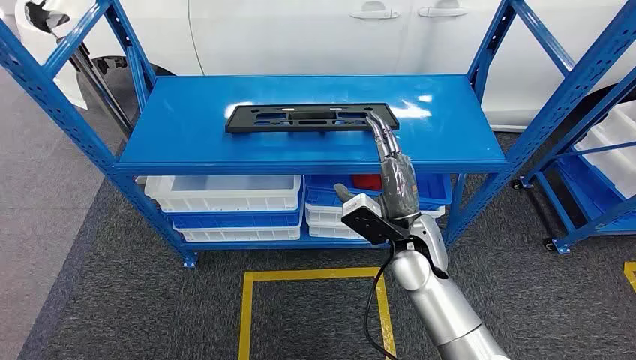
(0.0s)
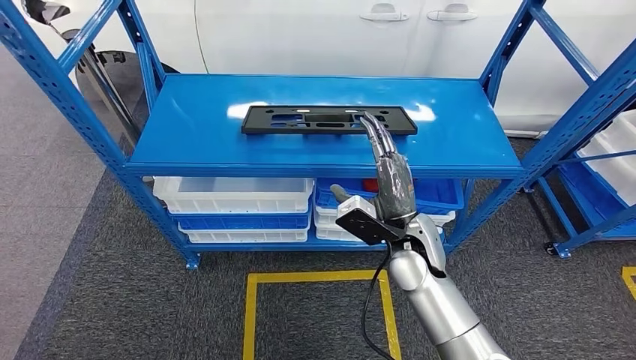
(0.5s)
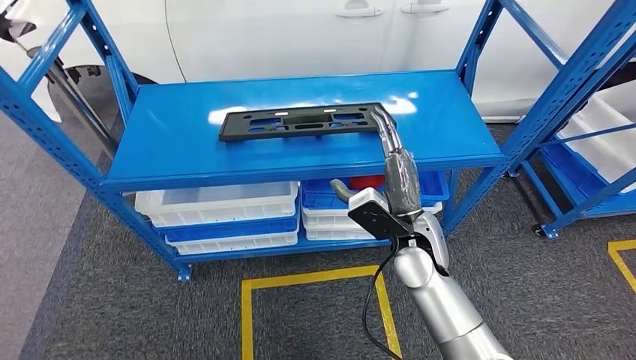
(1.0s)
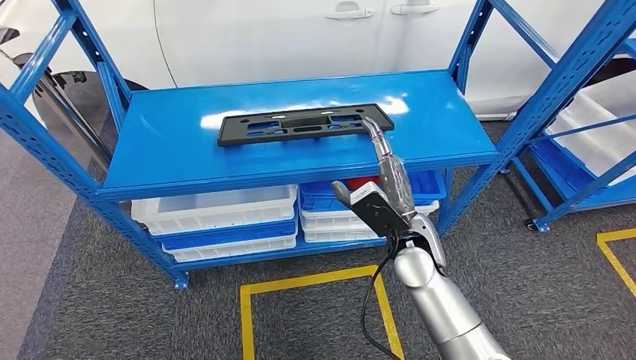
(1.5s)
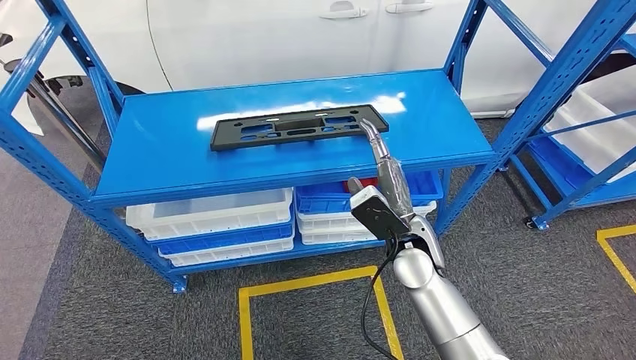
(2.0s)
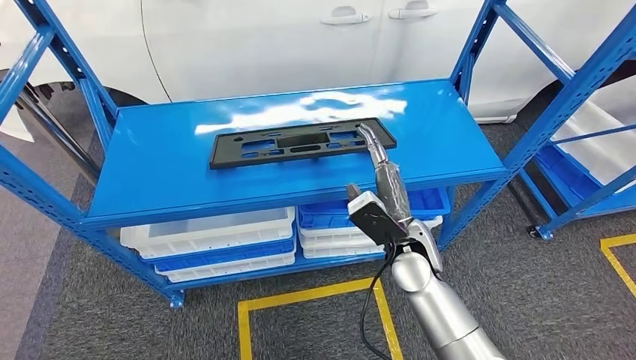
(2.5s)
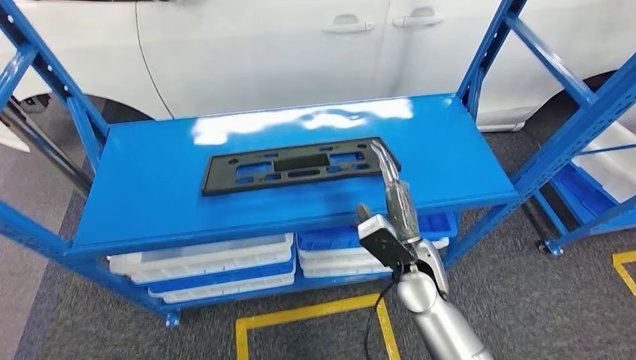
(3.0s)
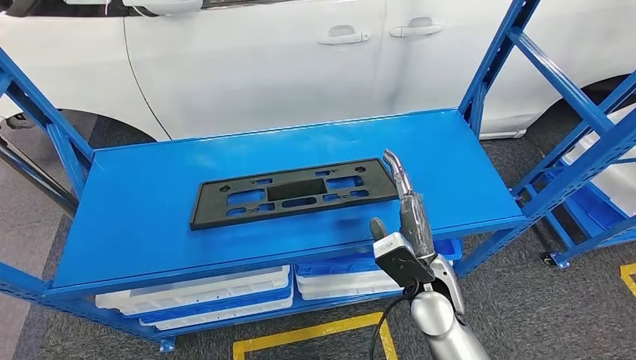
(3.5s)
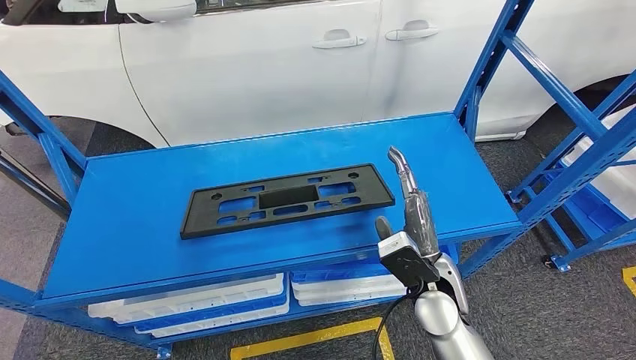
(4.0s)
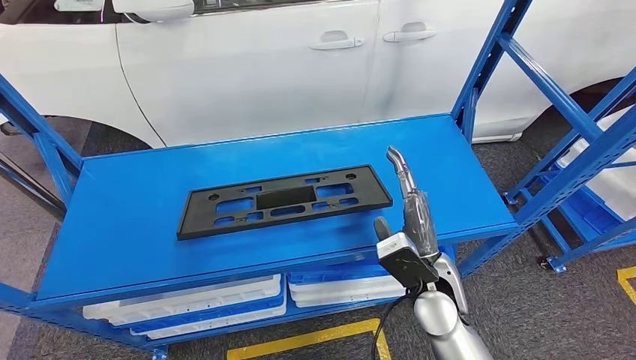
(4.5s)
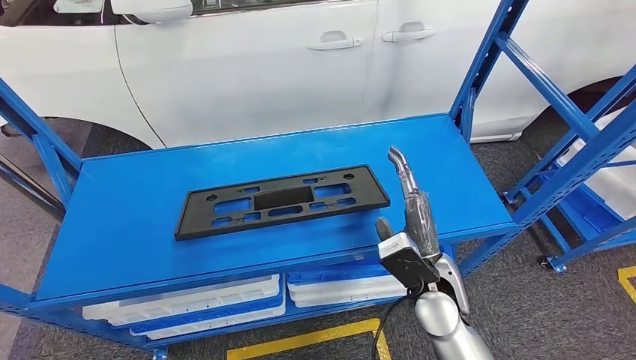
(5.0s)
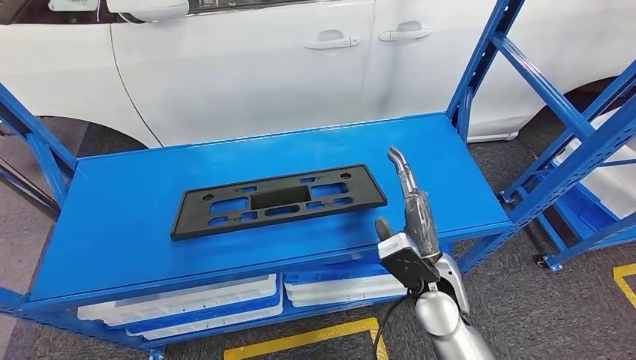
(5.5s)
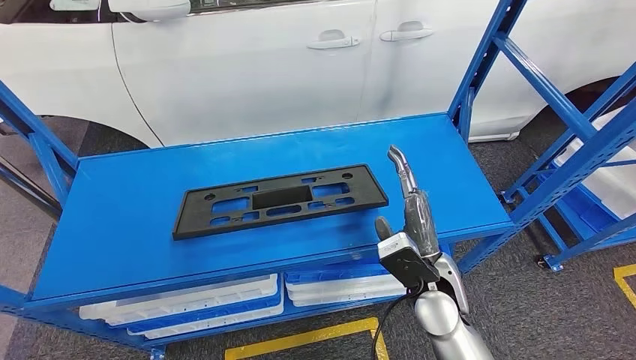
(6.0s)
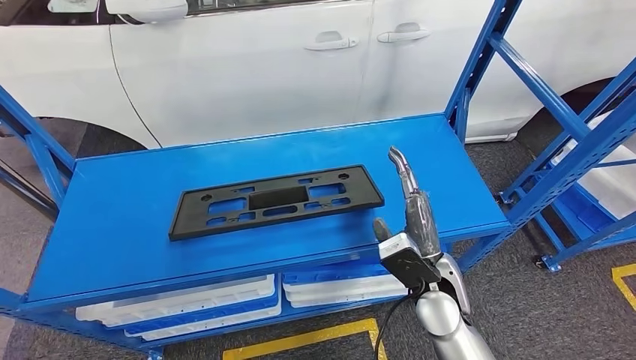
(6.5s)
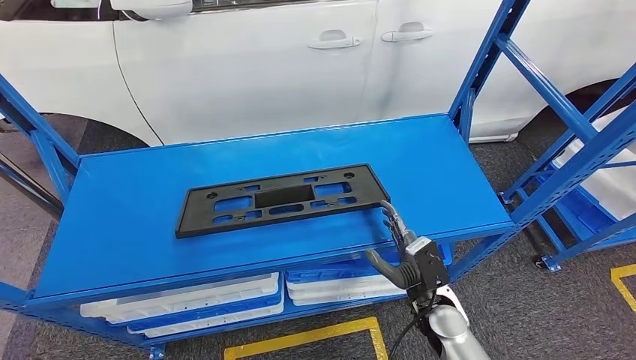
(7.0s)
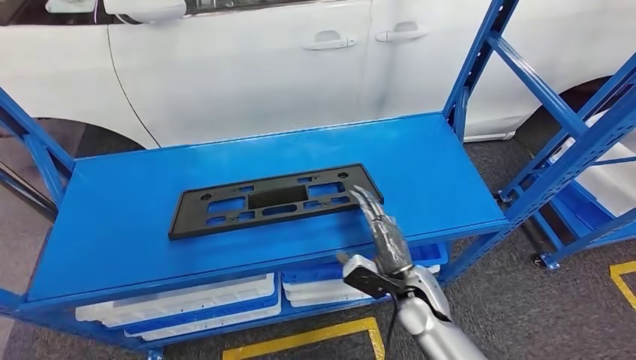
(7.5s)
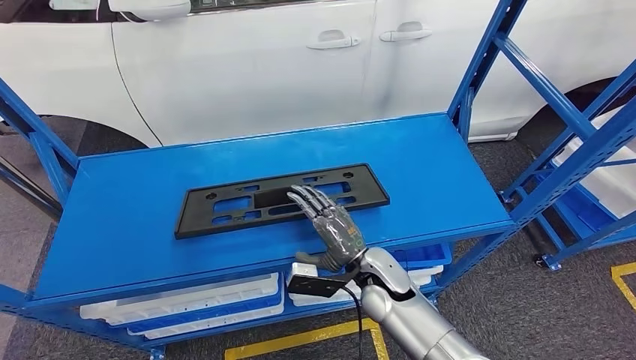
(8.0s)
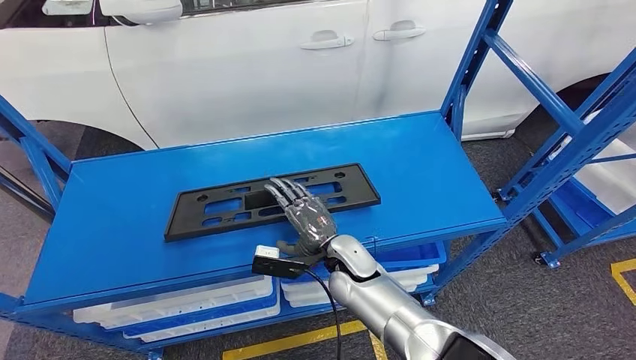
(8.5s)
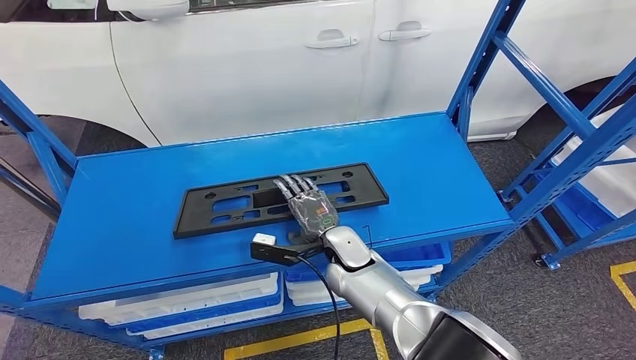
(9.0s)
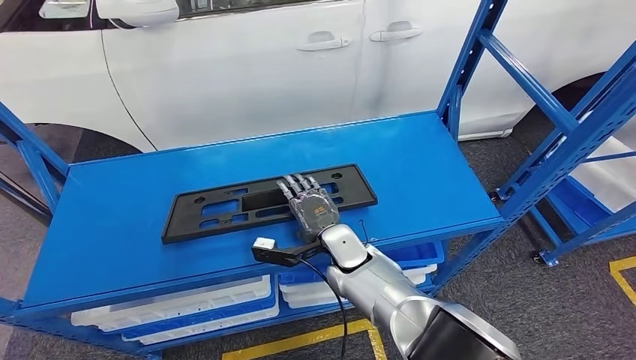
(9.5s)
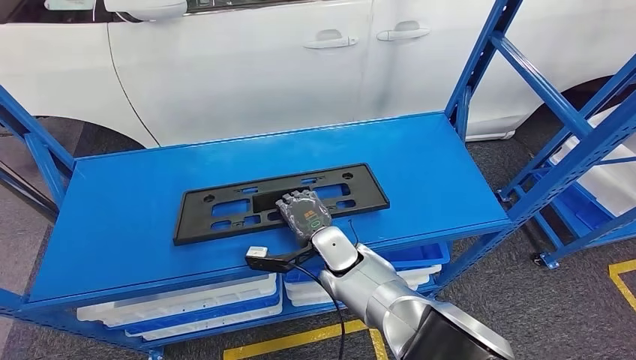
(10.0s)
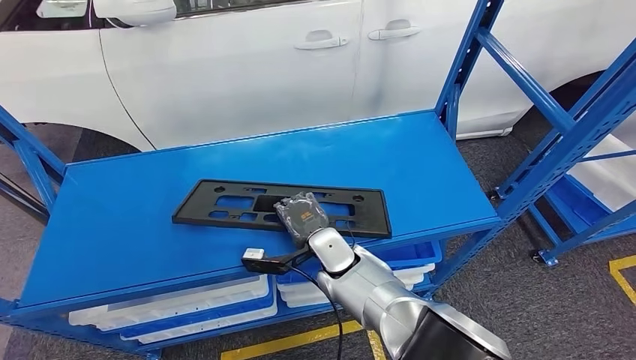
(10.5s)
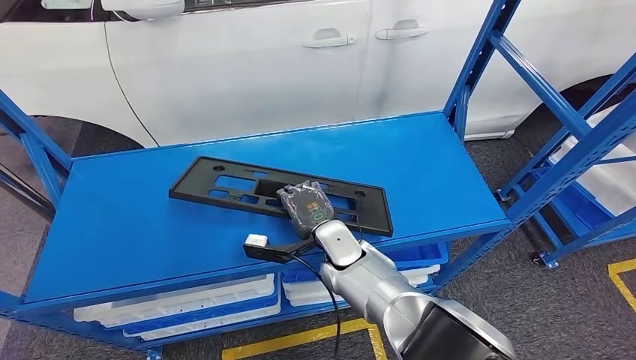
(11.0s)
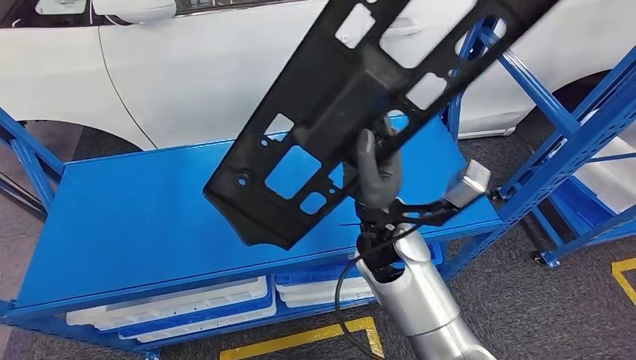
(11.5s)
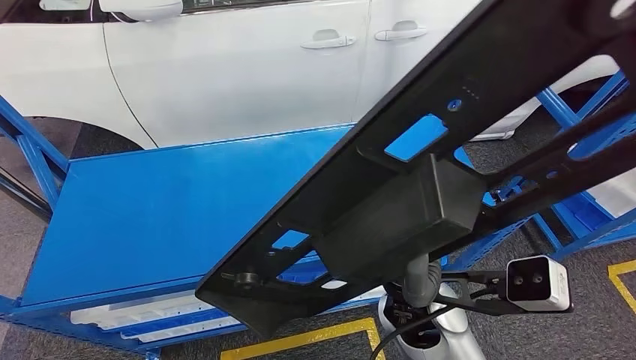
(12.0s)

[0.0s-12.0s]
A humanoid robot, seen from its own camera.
Step, 0.0s to 12.0s: Pick up the large material from the shelf.
4.0s to 6.0s: Neither hand changes place.
6.0s to 8.0s: The right hand heads to the left and downward, covering about 10 cm.
8.0s to 10.0s: The right hand travels to the left by some 10 cm.

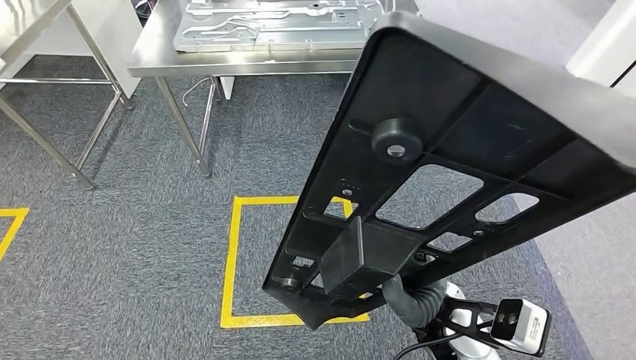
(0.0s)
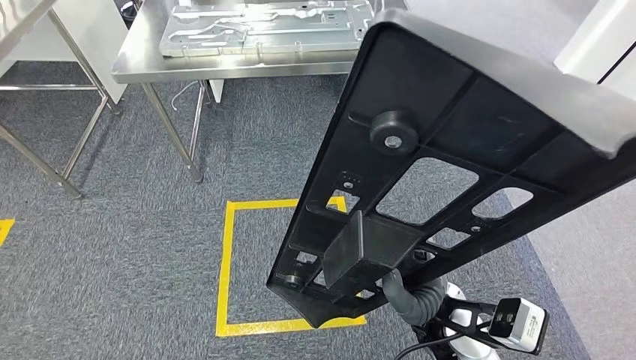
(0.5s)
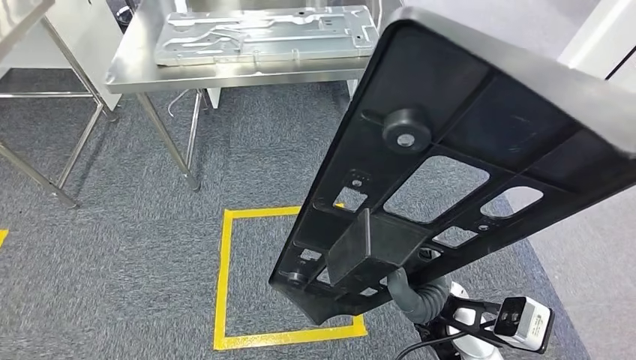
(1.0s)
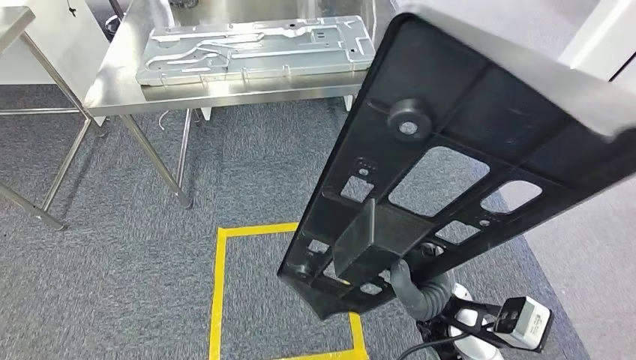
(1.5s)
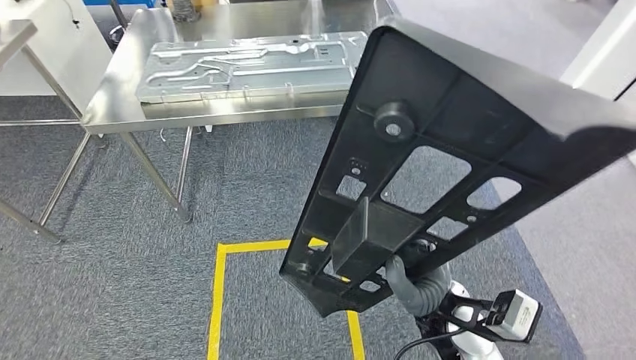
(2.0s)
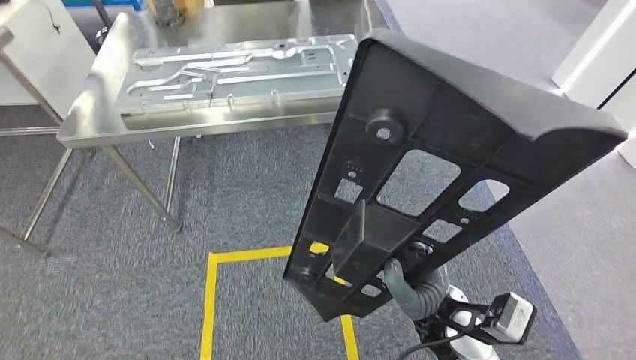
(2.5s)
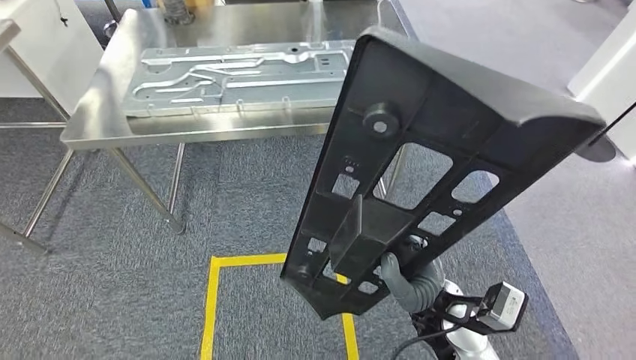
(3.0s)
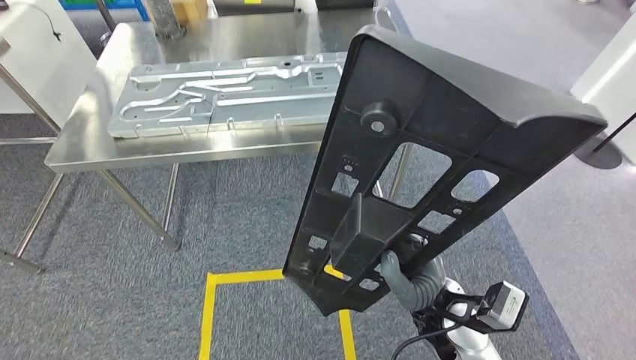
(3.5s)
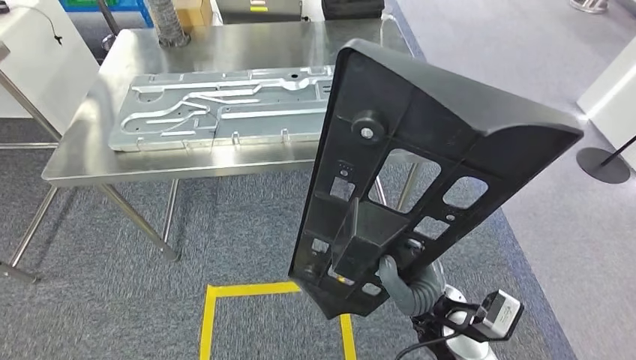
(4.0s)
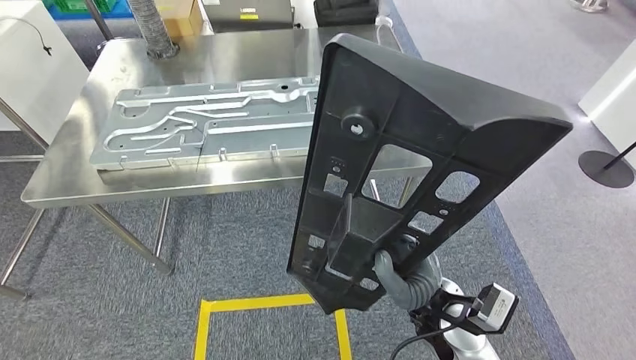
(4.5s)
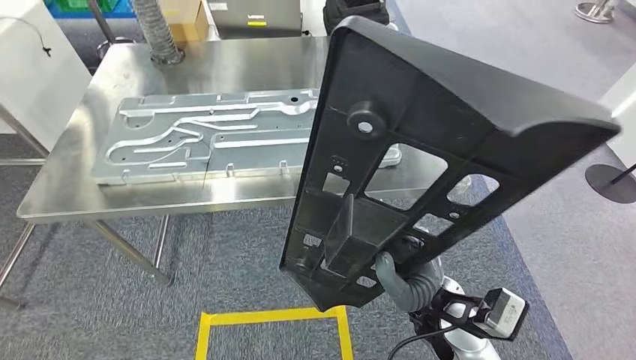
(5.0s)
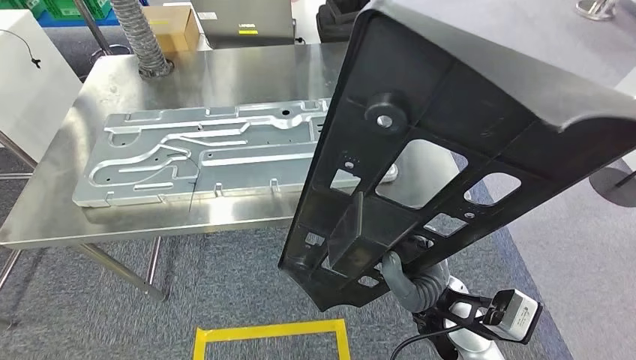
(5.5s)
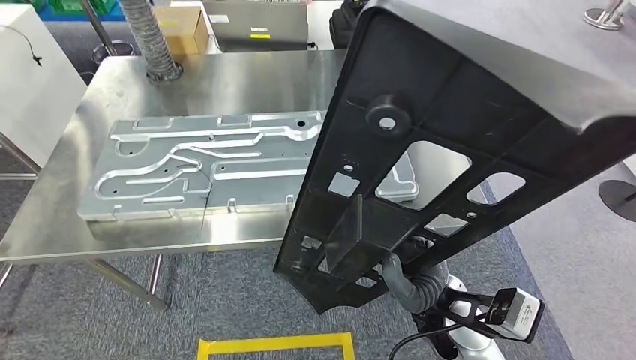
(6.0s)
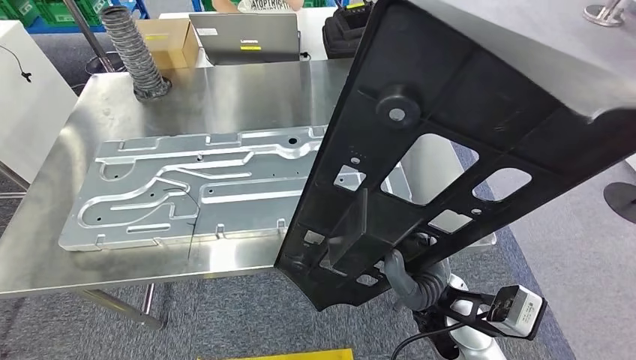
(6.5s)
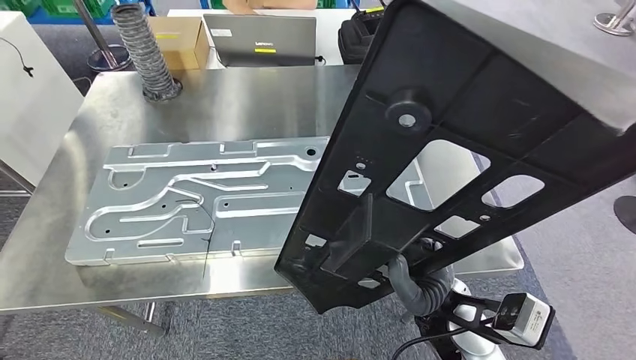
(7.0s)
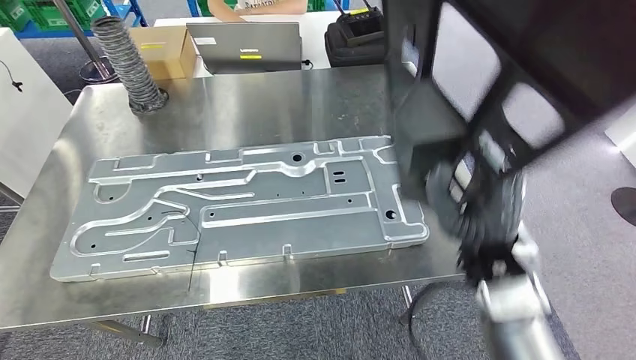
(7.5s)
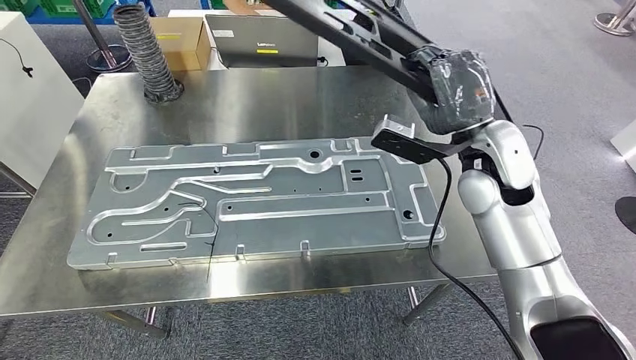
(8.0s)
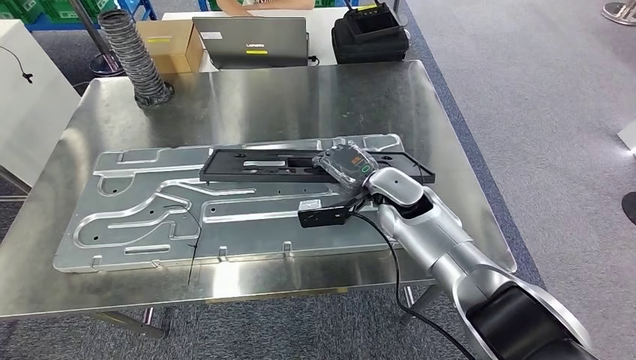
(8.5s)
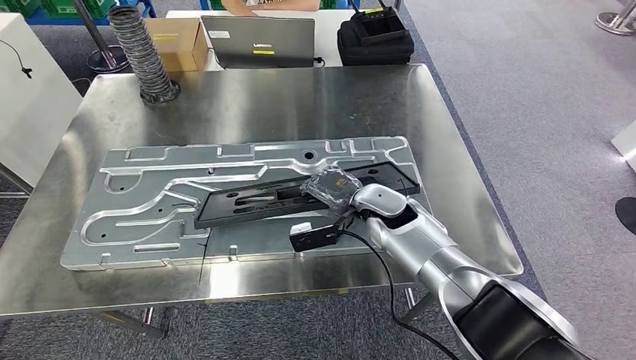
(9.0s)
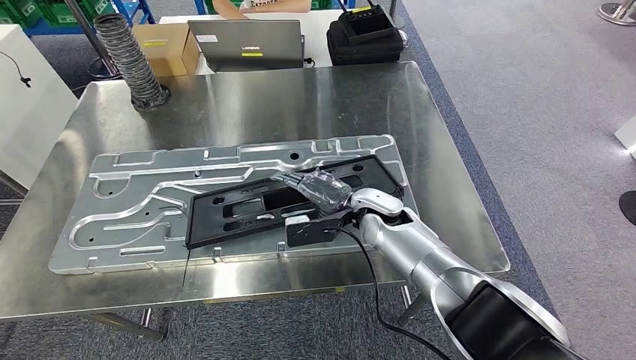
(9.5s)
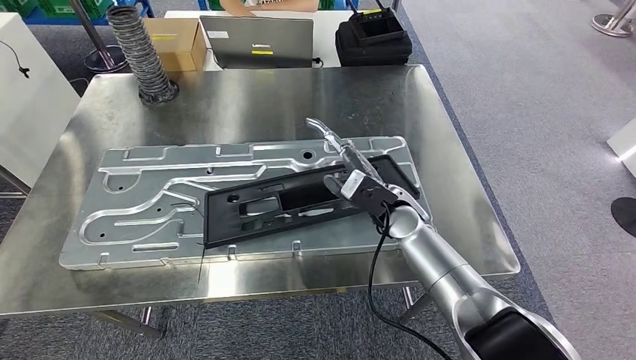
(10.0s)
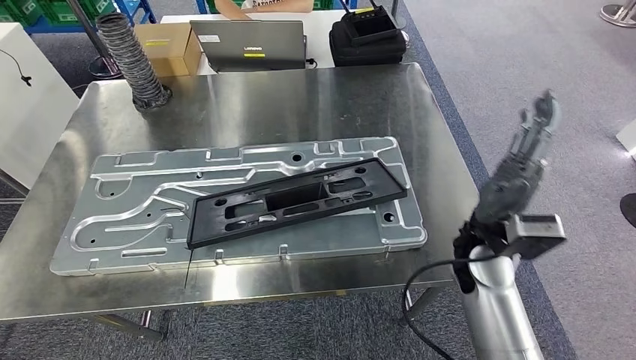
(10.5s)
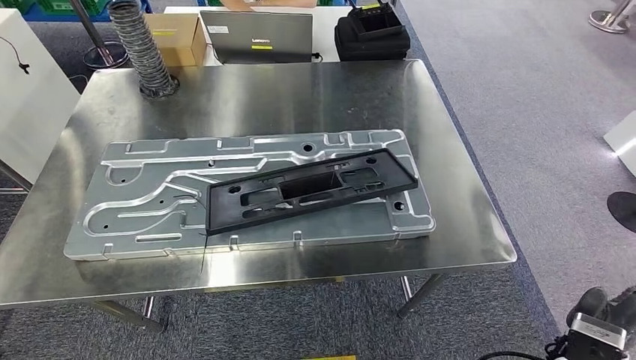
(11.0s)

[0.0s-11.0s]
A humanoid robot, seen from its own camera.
Step, 0.0s to 8.5s: Move the large material to the workbench.
